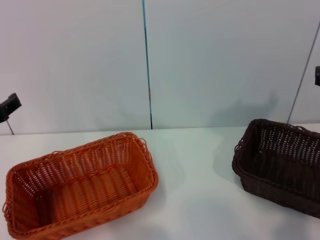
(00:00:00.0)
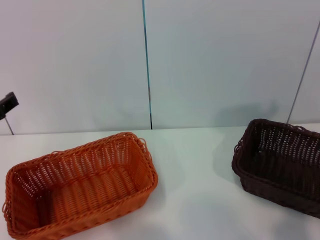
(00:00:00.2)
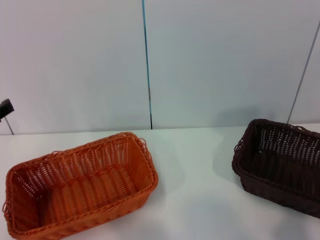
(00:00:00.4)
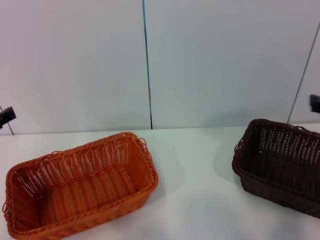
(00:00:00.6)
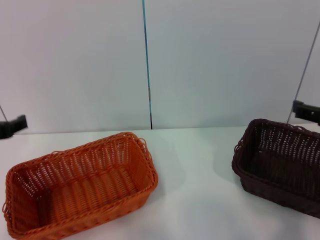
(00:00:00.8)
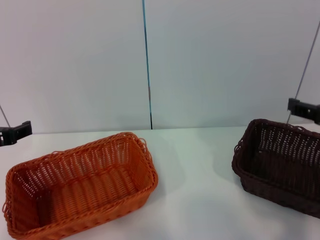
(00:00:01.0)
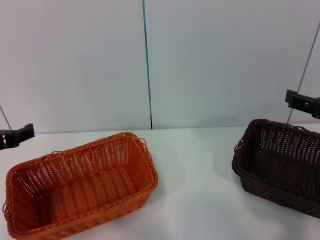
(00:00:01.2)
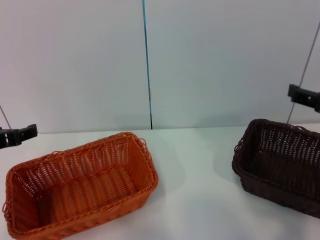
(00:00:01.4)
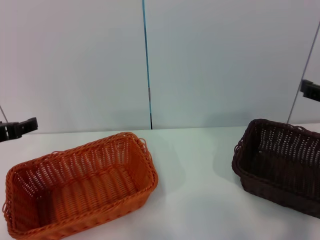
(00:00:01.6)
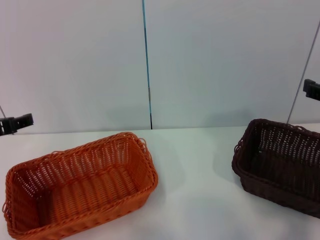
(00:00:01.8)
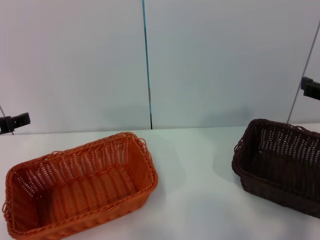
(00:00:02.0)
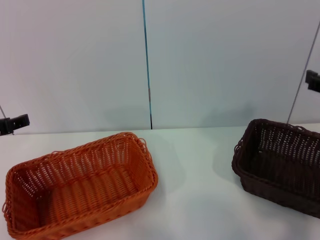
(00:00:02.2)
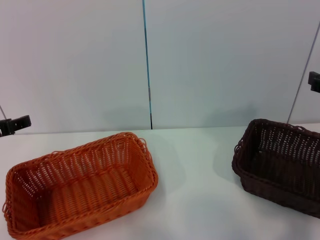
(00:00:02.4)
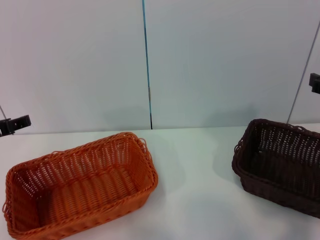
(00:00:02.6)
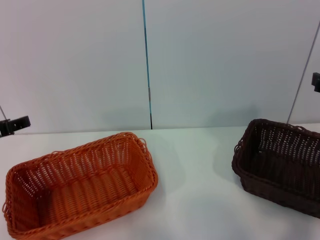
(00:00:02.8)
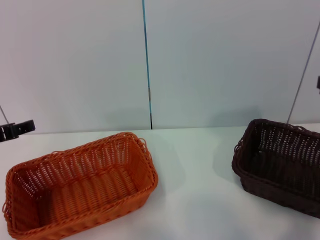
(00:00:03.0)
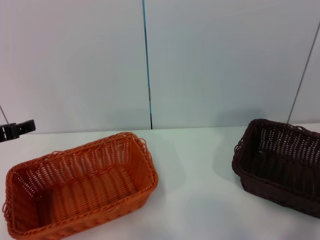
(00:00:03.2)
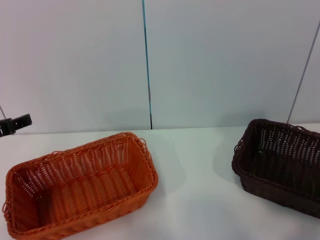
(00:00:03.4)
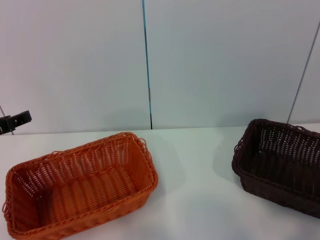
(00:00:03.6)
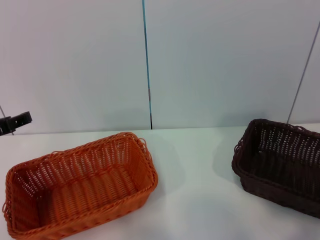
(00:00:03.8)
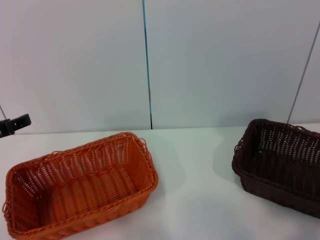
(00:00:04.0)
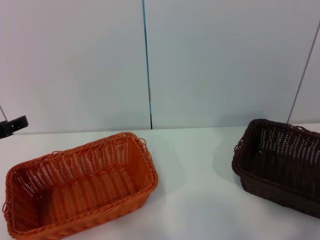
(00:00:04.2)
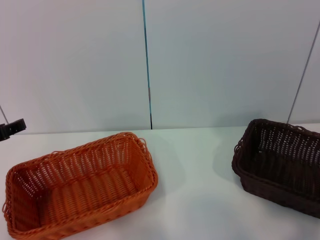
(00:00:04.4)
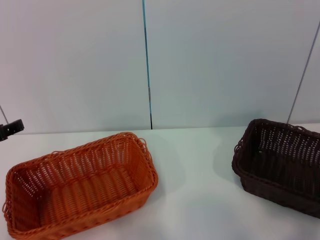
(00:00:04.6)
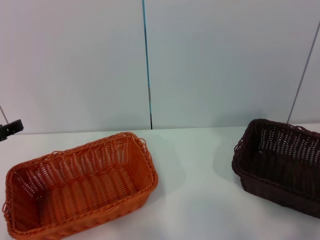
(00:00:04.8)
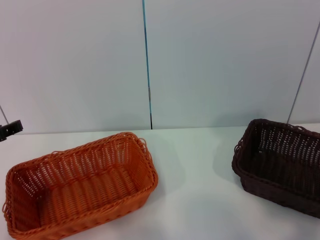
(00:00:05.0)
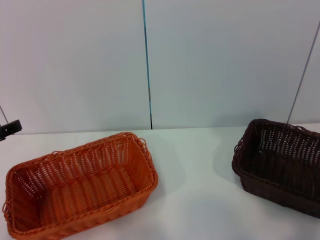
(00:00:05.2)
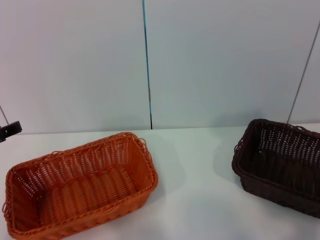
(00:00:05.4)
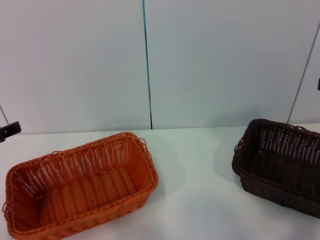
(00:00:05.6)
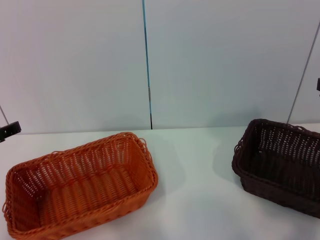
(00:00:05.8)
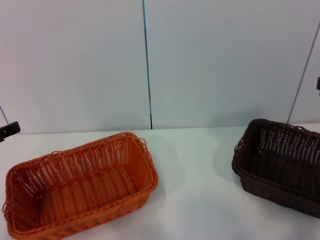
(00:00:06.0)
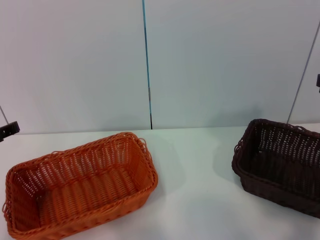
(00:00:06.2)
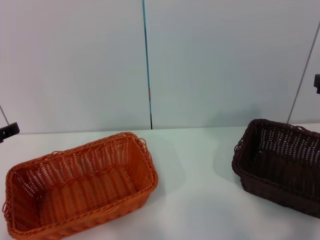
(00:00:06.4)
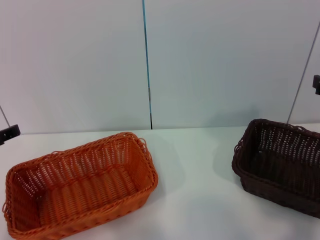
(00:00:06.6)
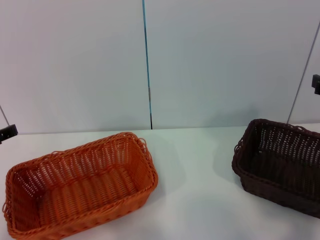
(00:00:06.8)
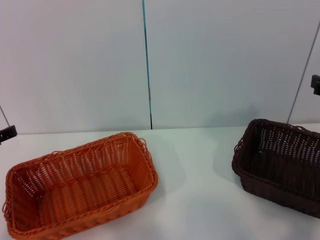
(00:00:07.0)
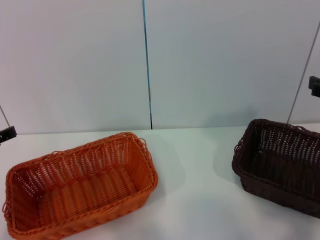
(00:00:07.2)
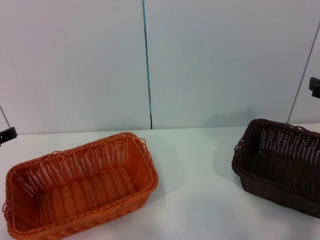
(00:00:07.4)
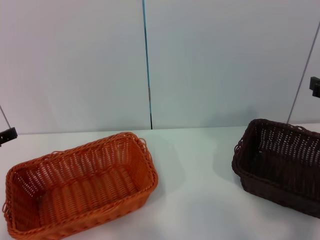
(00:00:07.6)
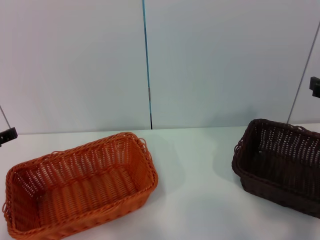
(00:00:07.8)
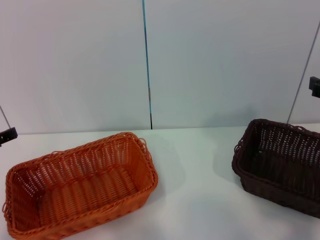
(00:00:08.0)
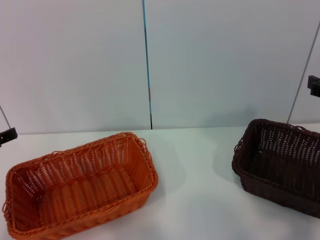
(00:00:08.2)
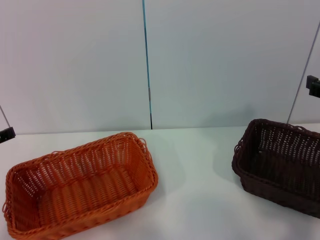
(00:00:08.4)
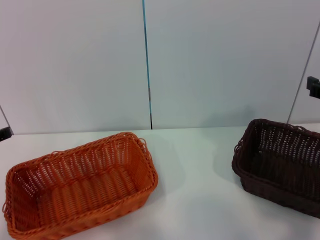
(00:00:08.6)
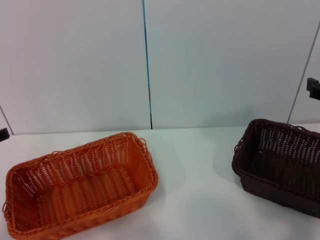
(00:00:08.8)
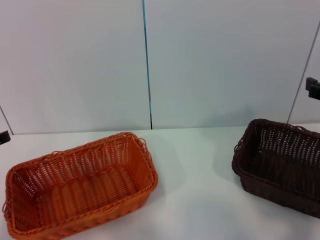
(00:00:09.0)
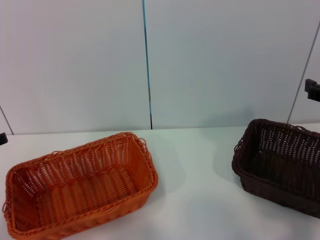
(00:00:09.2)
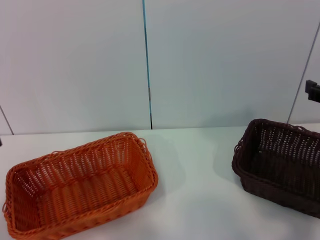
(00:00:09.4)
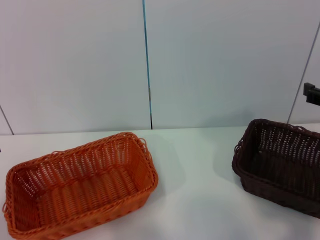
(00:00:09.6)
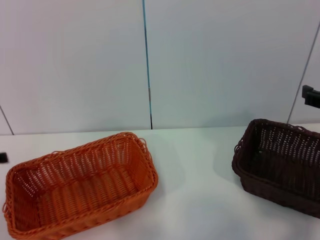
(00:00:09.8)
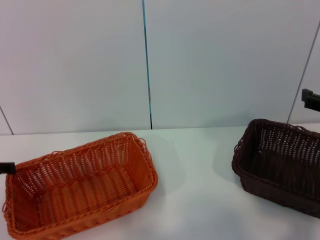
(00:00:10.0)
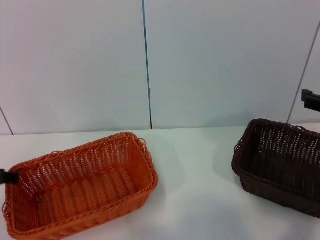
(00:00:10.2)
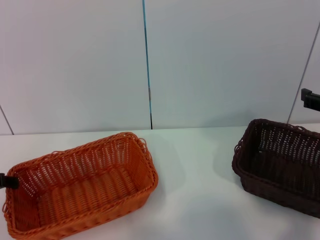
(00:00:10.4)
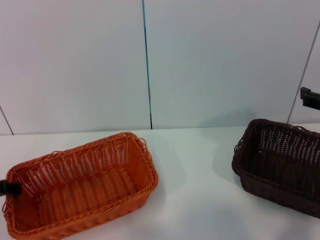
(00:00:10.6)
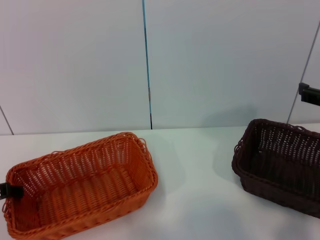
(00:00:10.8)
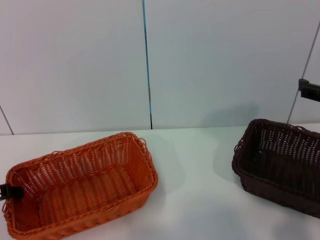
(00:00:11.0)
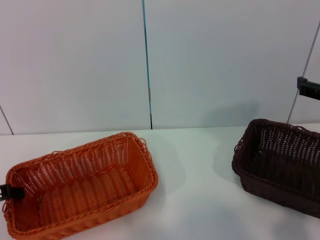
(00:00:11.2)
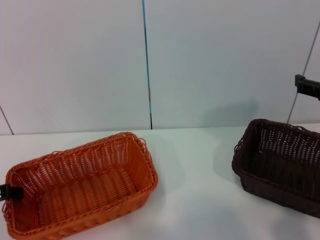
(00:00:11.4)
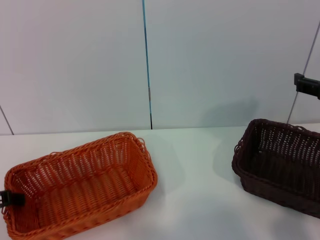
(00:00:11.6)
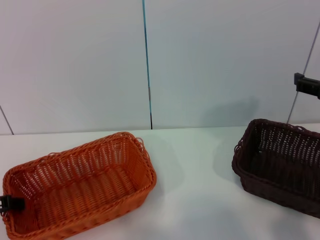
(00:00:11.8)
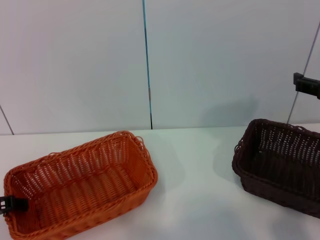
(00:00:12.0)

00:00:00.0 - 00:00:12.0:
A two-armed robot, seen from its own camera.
00:00:00.0 - 00:00:01.6: The grippers move only a little.
00:00:04.4 - 00:00:06.0: Neither gripper changes place.
00:00:06.0 - 00:00:07.6: Both grippers stay about where they are.
00:00:07.6 - 00:00:09.0: Both grippers stay about where they are.
00:00:10.4 - 00:00:12.0: The grippers stay close to where they were, moving slightly.

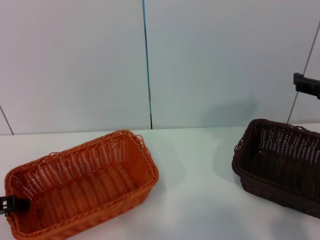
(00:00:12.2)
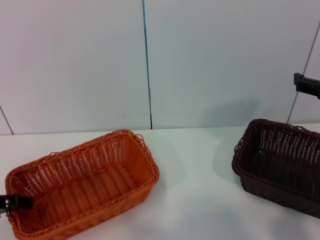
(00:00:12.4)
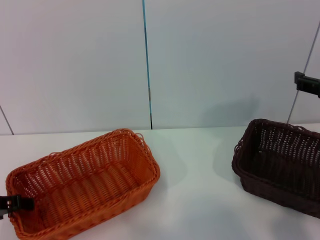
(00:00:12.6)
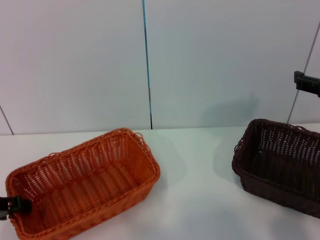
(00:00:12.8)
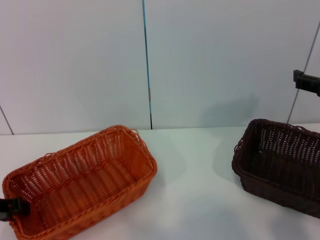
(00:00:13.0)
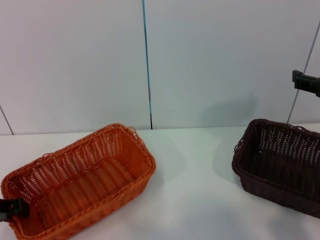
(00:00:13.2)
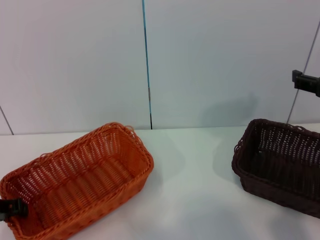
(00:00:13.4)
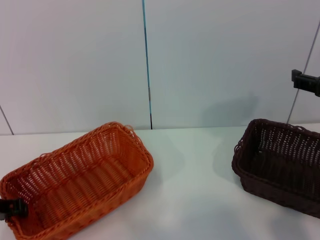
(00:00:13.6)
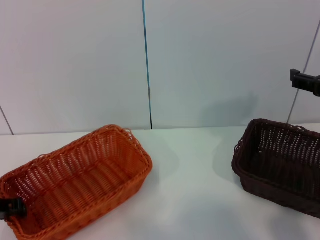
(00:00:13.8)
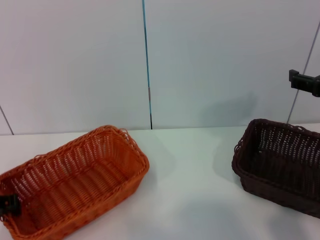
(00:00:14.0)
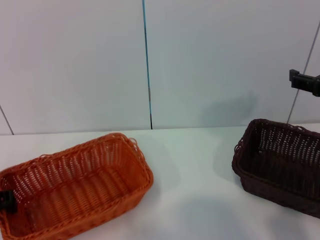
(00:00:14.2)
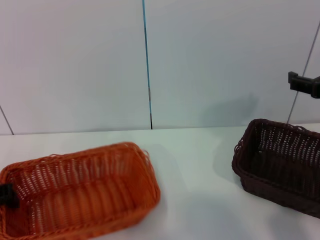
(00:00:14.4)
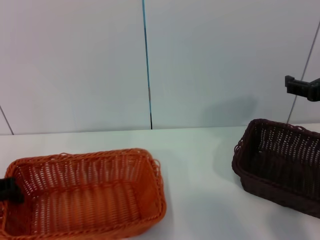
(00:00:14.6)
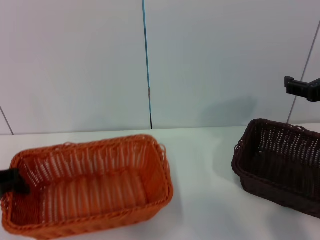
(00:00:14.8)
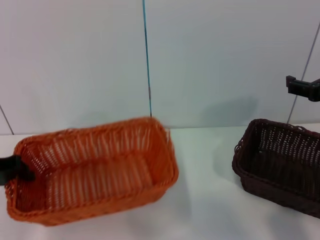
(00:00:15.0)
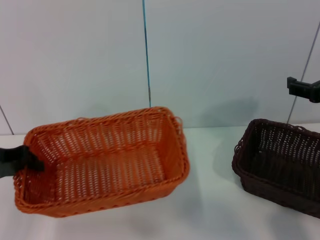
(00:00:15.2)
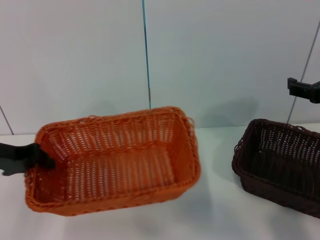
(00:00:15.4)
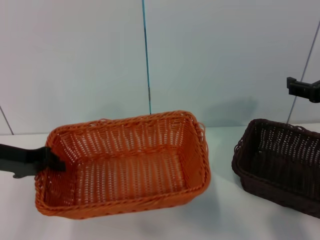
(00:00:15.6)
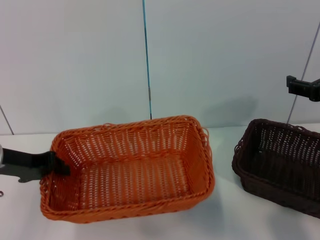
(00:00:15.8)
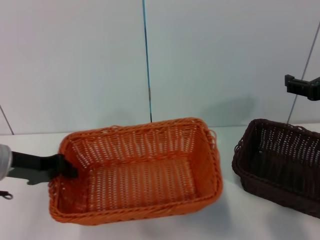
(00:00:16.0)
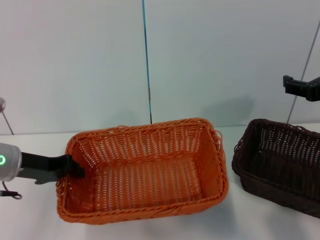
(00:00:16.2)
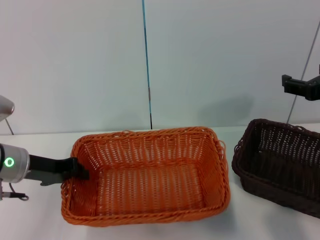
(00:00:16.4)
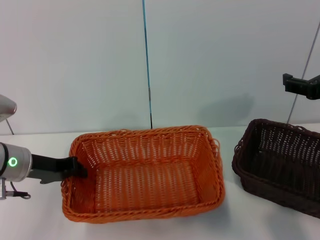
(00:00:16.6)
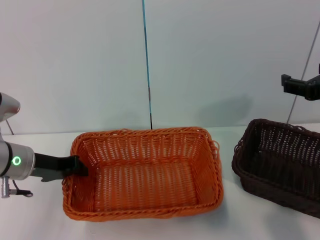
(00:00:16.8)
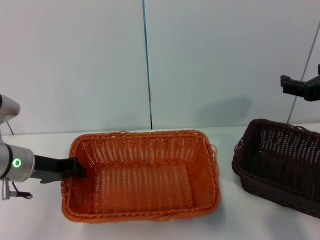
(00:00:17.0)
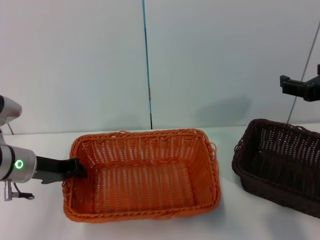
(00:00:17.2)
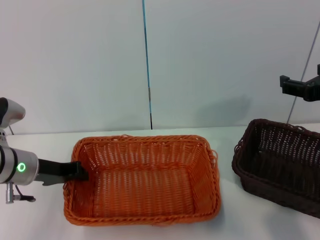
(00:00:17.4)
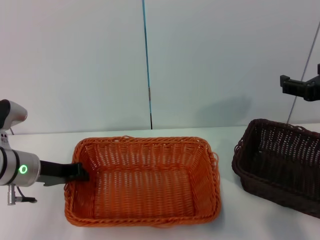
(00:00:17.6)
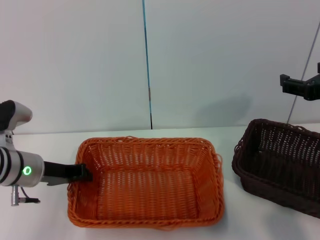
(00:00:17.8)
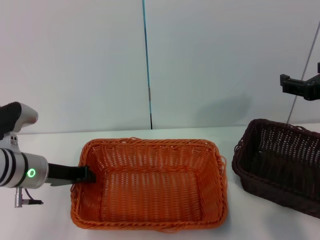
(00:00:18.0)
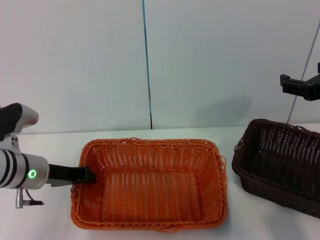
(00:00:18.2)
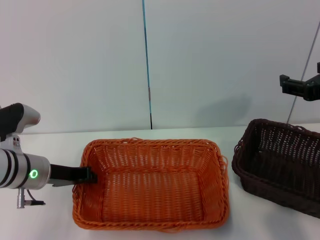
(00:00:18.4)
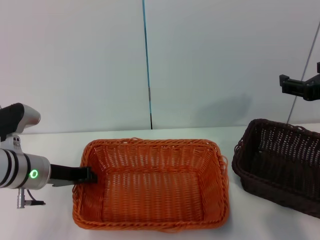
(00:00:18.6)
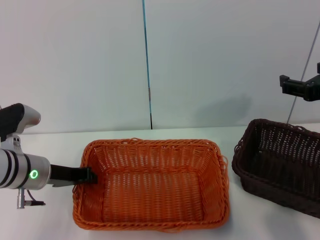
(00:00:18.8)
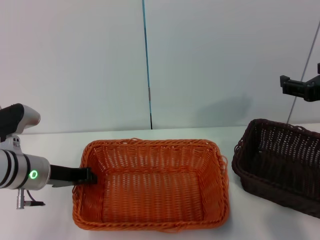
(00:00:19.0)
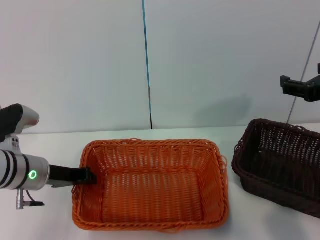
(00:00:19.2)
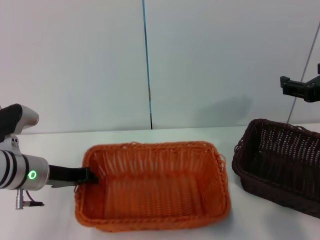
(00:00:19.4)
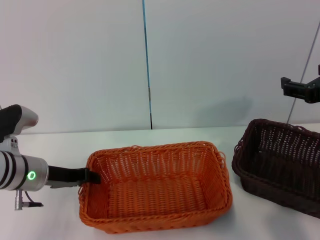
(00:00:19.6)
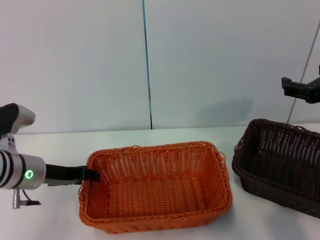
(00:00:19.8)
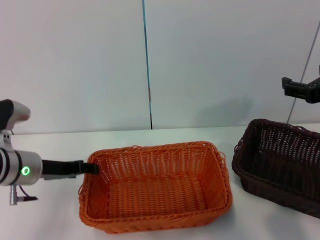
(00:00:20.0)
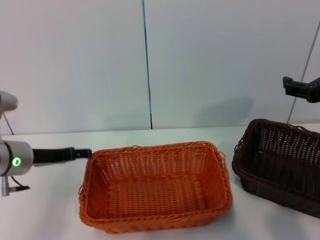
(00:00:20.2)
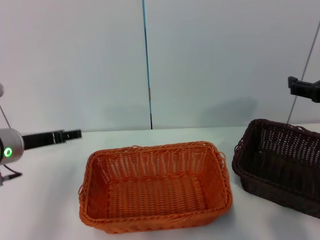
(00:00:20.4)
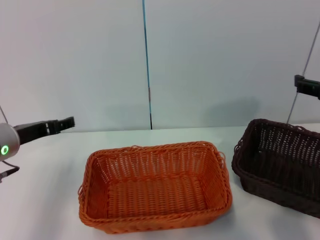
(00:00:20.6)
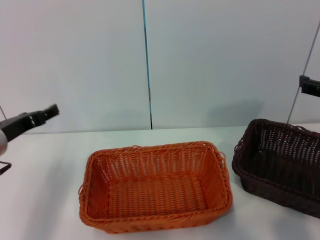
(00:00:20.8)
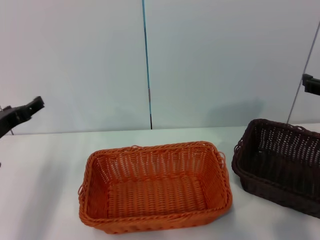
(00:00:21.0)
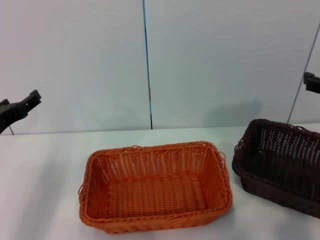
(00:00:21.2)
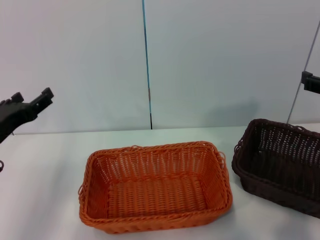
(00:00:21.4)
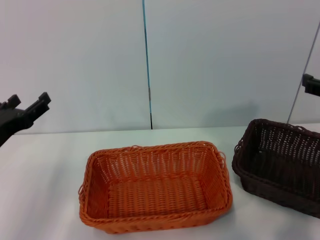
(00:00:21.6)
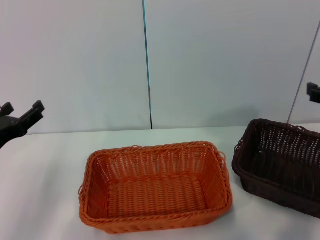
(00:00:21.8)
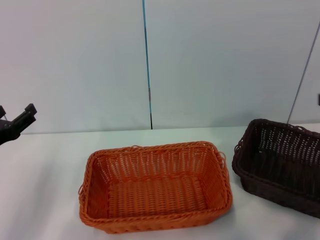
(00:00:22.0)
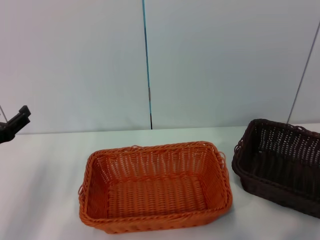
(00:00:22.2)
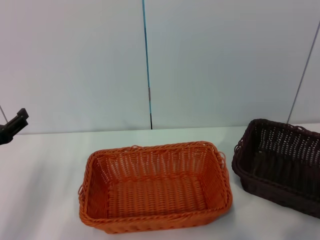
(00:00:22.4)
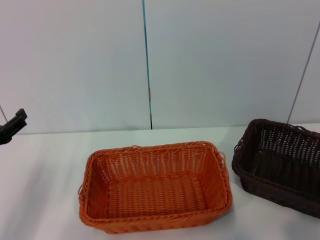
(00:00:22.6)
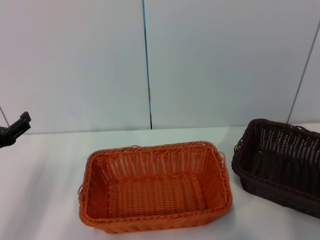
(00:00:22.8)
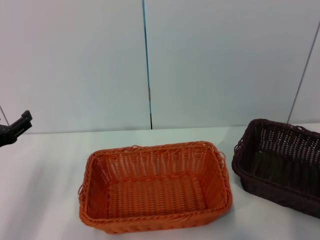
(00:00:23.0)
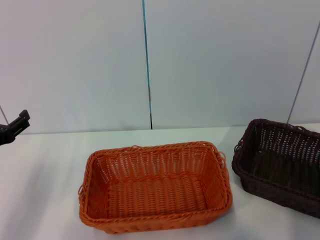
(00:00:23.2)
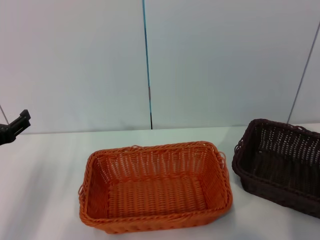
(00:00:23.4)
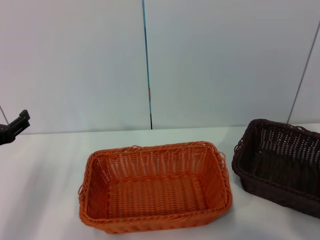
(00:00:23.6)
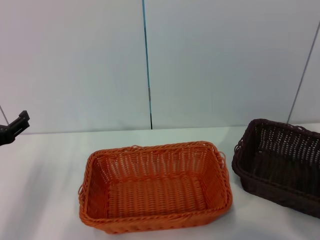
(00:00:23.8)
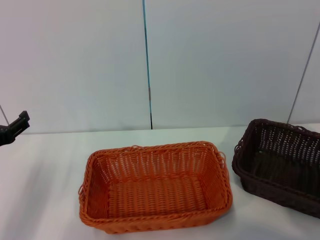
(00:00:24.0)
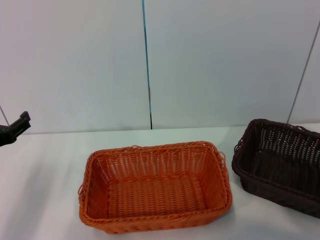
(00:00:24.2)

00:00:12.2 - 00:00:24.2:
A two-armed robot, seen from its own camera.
Step, 00:00:12.2 - 00:00:15.0: Pick up the light basket with the left gripper.
Step, 00:00:15.2 - 00:00:19.4: Place the light basket in the center of view with the left gripper.
00:00:12.2 - 00:00:13.8: The left gripper closes.
00:00:13.8 - 00:00:15.2: The left gripper shifts approximately 5 cm upward.
00:00:15.2 - 00:00:16.6: The left gripper heads to the right, covering about 5 cm.
00:00:16.6 - 00:00:18.2: The grippers make only small movements.
00:00:18.2 - 00:00:19.8: Both grippers stay put.
00:00:19.8 - 00:00:21.2: The left gripper moves about 10 cm, and opens its fingers.
00:00:21.2 - 00:00:22.6: The right gripper heads to the right, covering some 5 cm.
